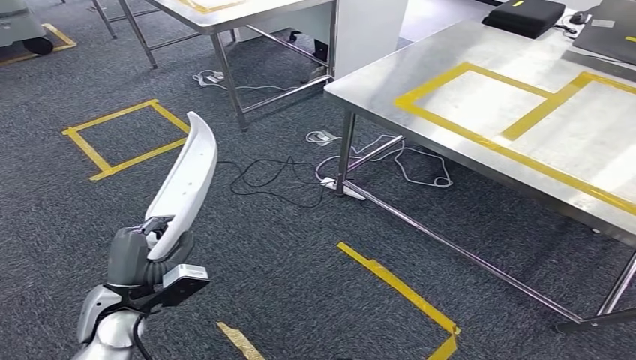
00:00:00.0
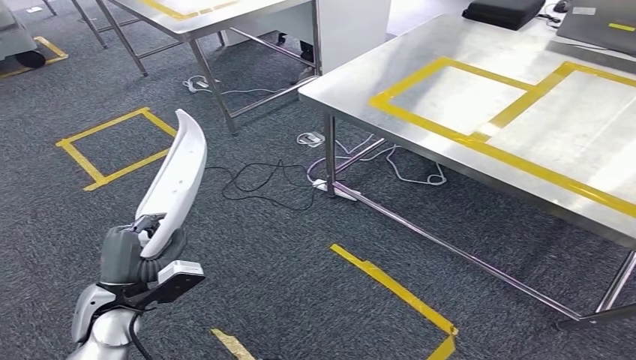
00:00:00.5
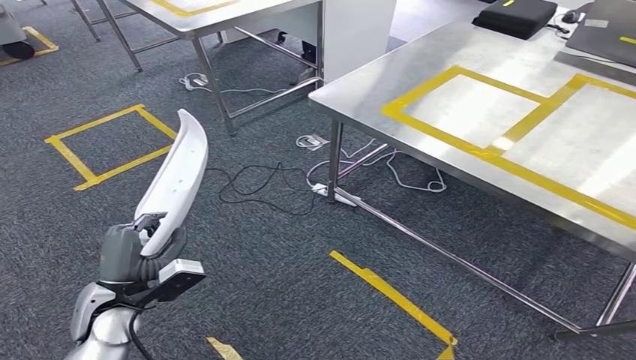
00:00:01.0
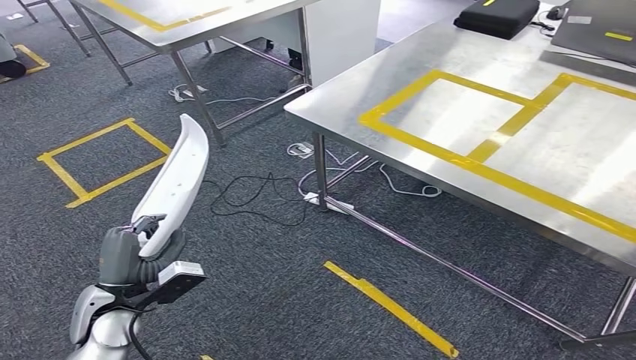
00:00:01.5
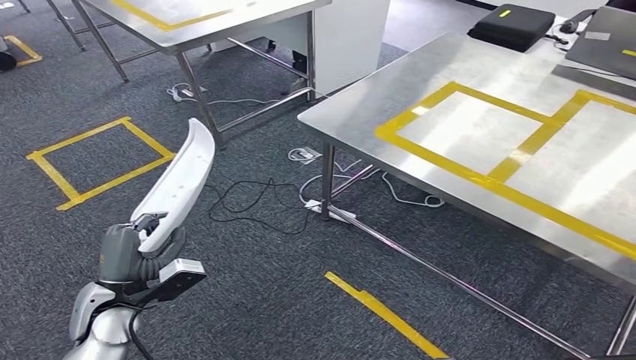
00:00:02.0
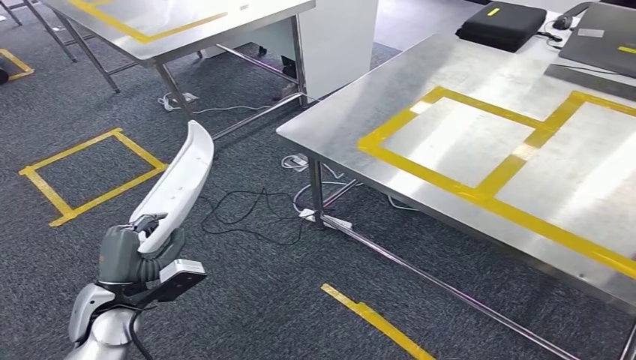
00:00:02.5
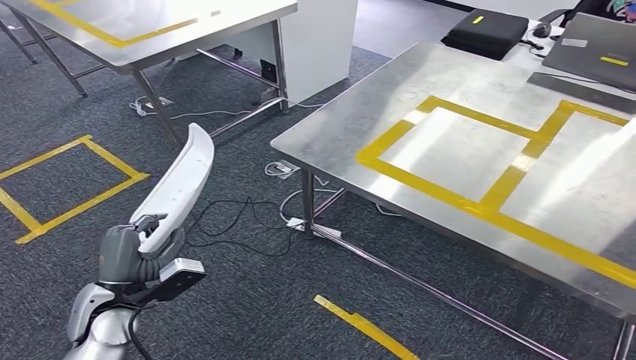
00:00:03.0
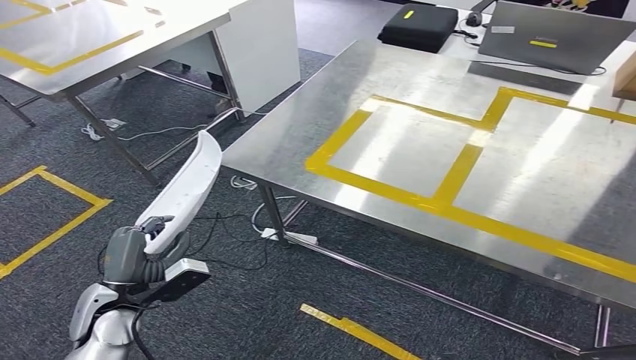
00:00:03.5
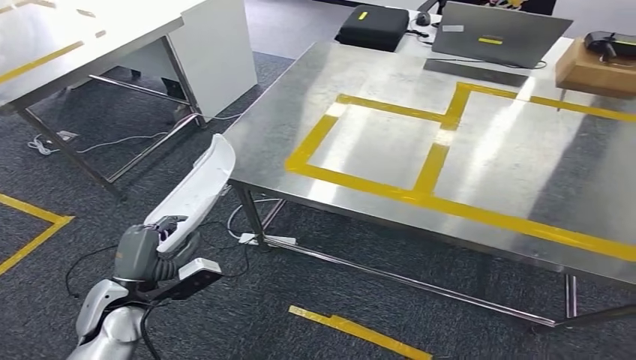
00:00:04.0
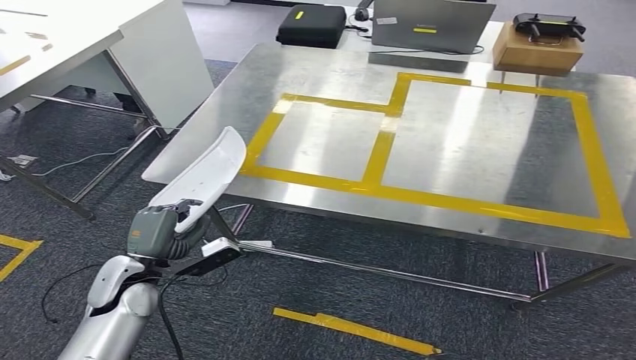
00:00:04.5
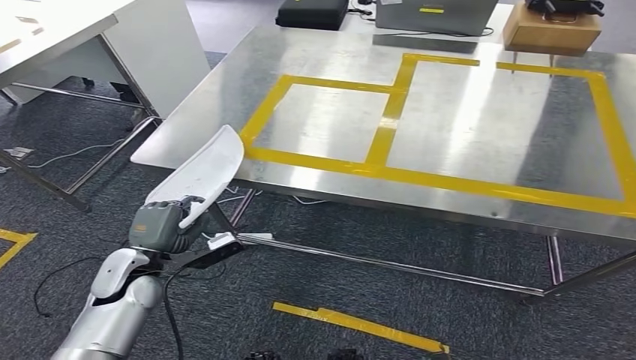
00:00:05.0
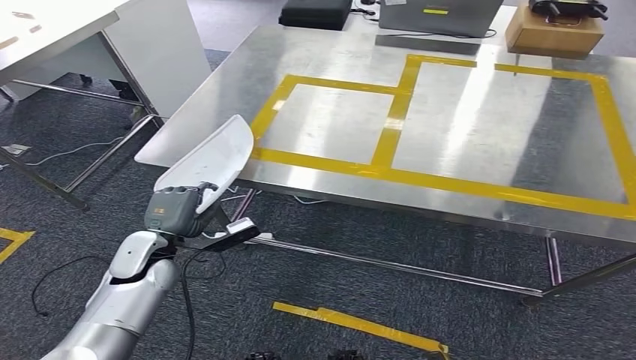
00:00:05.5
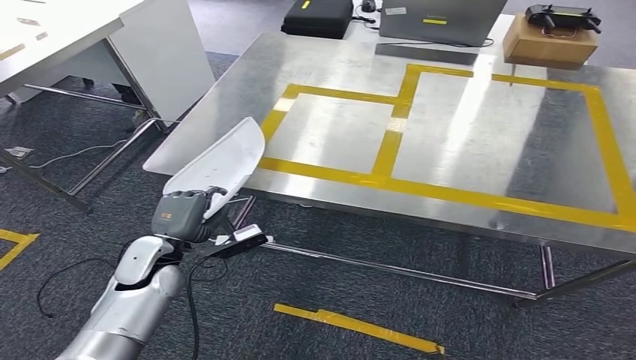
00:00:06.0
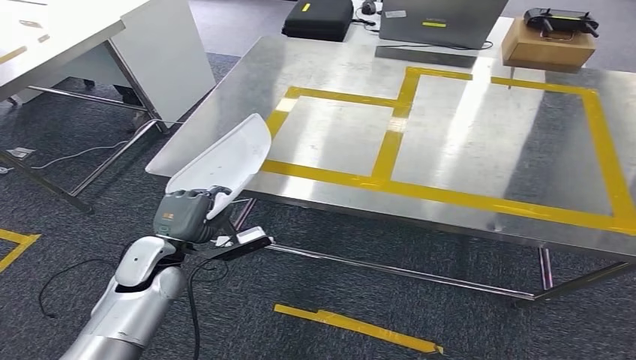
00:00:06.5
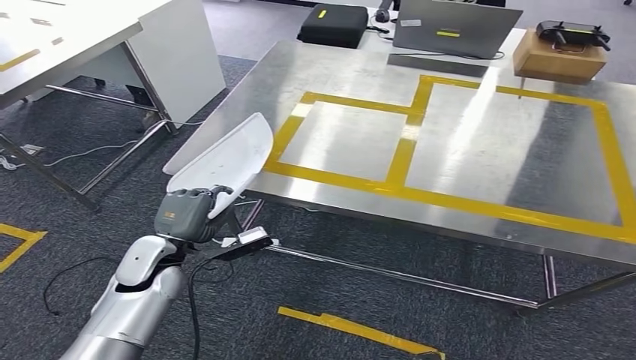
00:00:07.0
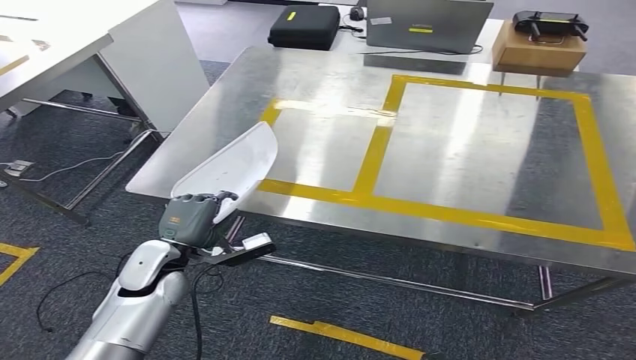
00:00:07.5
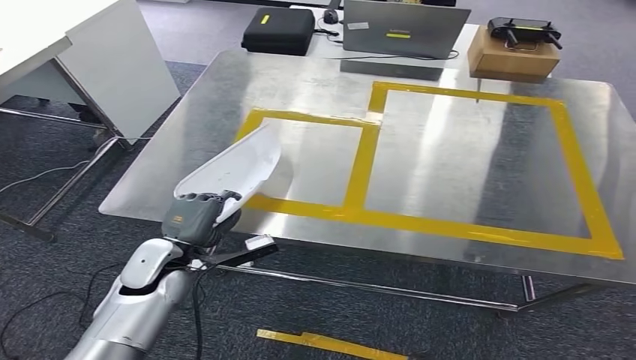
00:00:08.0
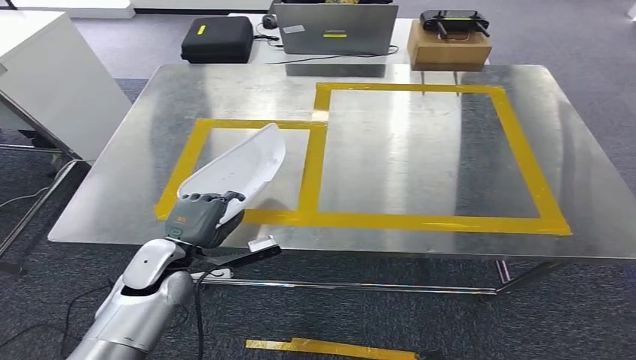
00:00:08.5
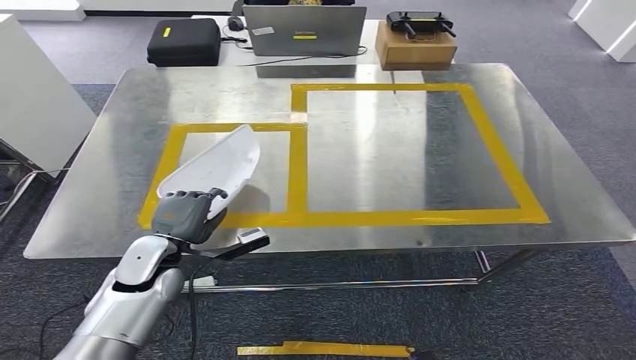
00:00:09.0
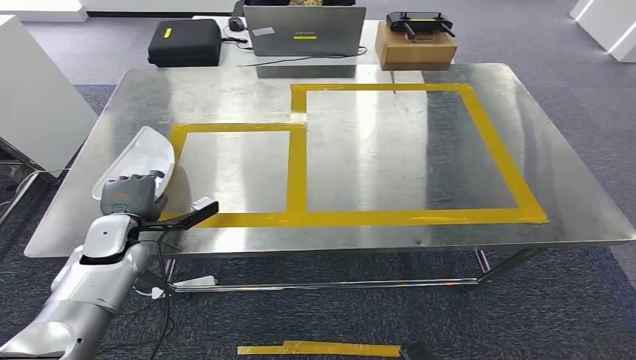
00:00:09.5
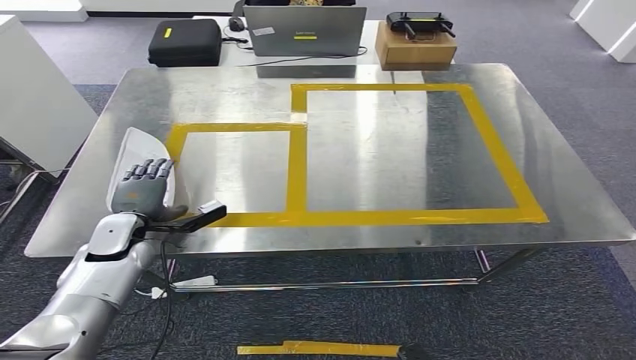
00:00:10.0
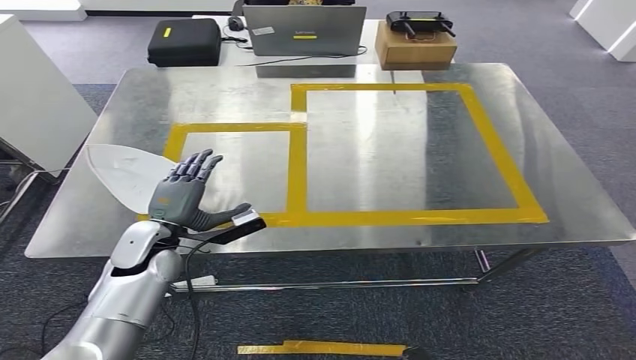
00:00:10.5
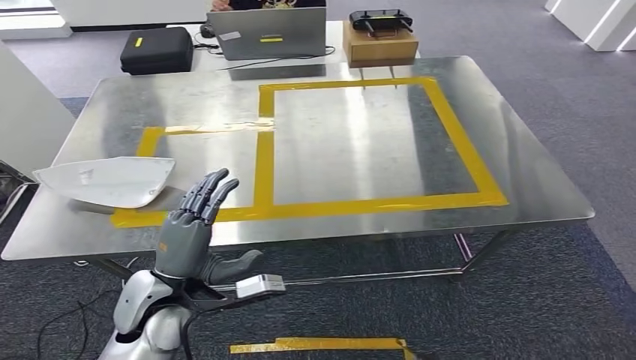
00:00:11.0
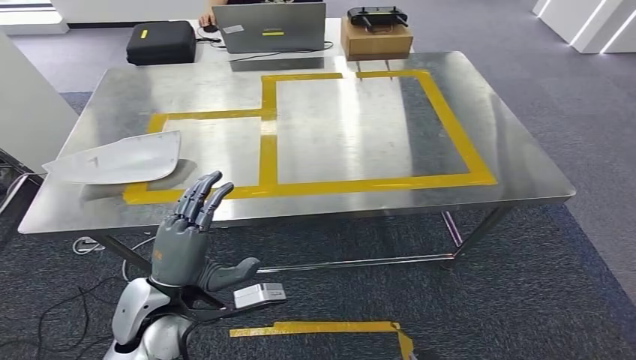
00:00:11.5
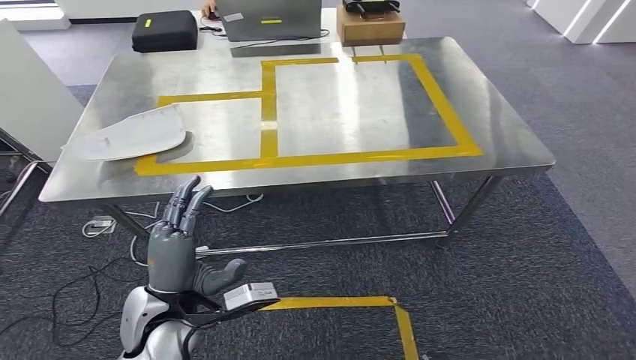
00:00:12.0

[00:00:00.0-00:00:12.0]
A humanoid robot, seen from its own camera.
Step, 00:00:00.0 to 00:00:04.0: Move the small component to the workbench.
Step, 00:00:04.5 to 00:00:12.0: Insert the small component into the corresponding slot on the workbench.

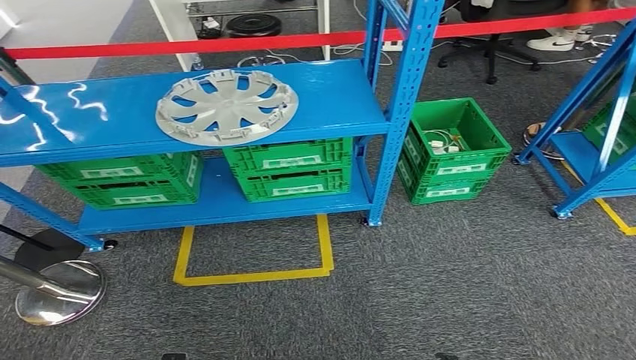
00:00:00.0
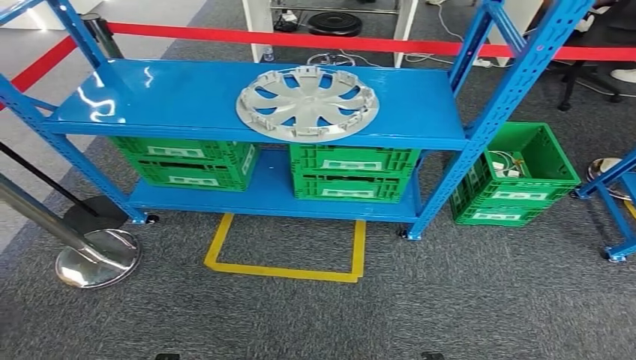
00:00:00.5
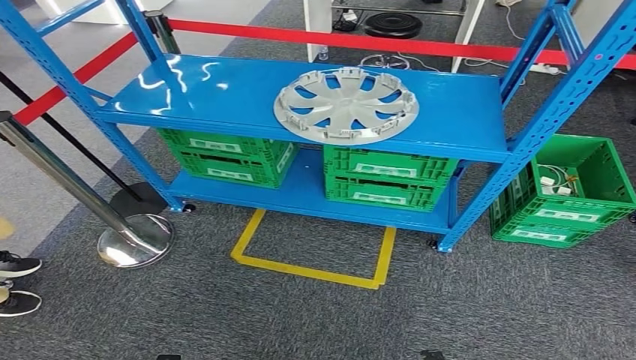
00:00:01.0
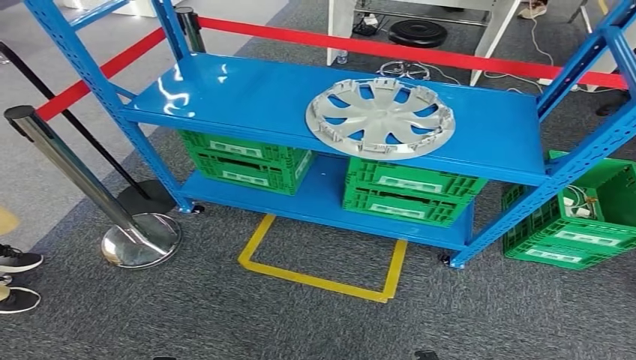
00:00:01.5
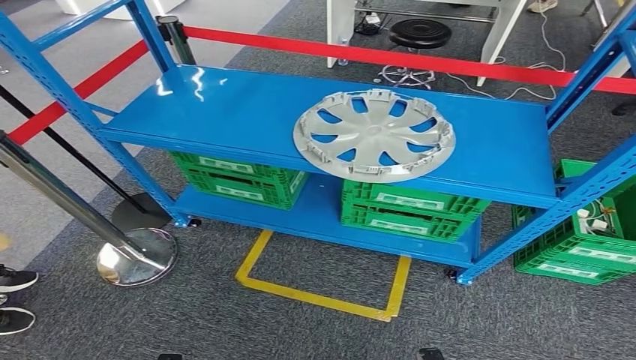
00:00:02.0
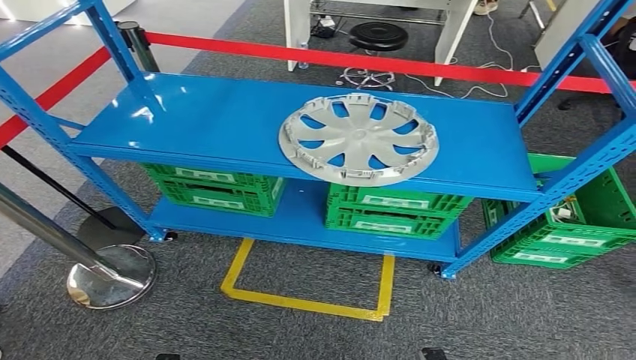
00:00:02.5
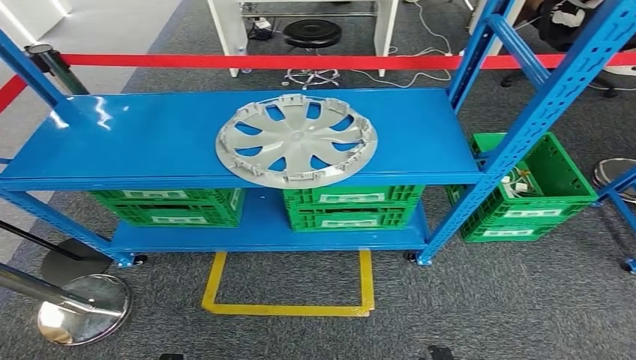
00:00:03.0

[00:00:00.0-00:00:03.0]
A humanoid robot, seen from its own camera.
Step, 00:00:00.0 to 00:00:03.0: Return to the initial position at the workbench.
